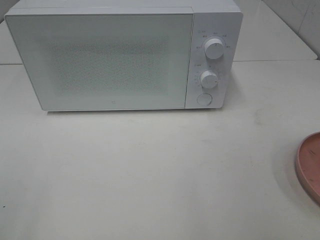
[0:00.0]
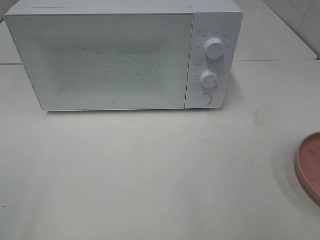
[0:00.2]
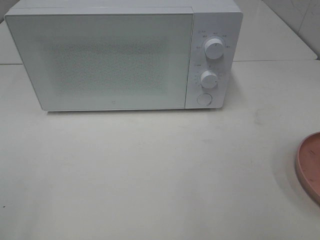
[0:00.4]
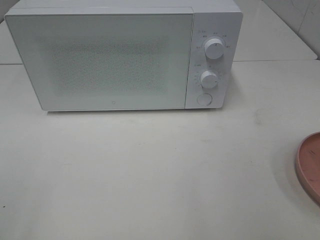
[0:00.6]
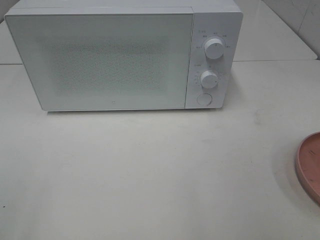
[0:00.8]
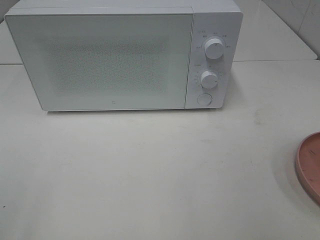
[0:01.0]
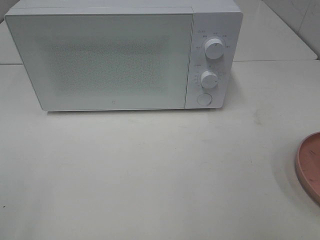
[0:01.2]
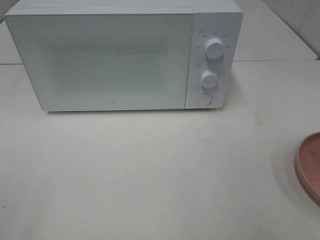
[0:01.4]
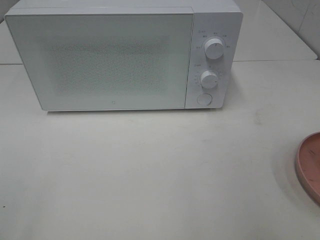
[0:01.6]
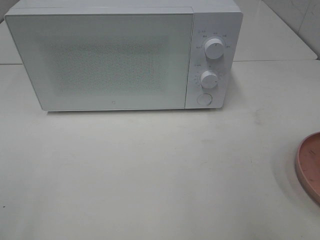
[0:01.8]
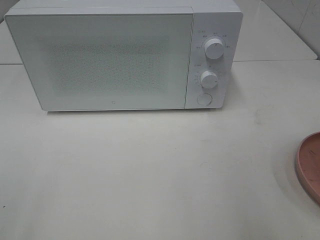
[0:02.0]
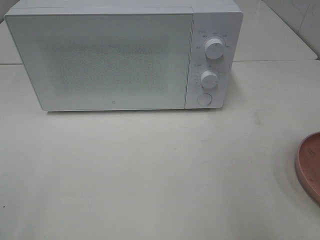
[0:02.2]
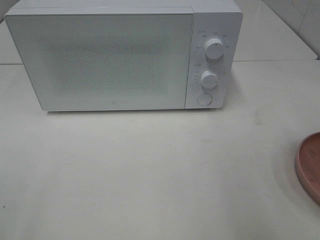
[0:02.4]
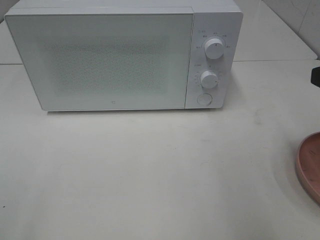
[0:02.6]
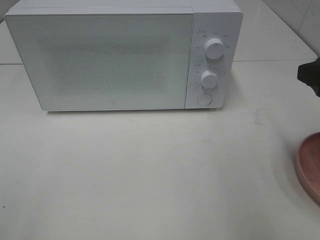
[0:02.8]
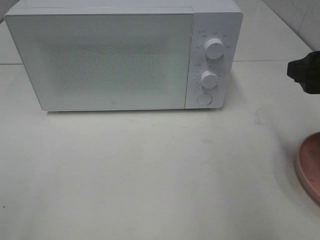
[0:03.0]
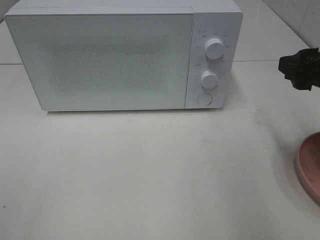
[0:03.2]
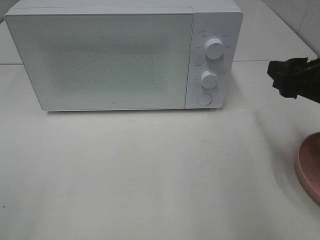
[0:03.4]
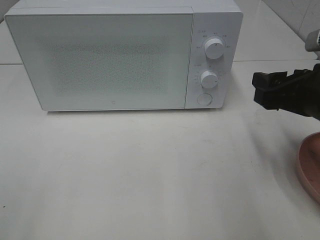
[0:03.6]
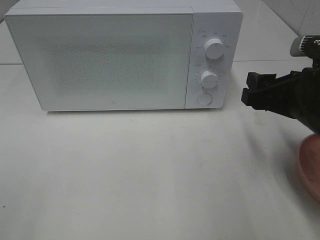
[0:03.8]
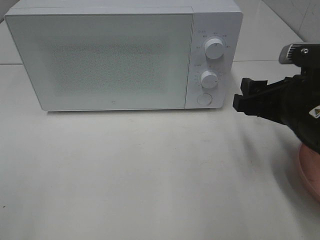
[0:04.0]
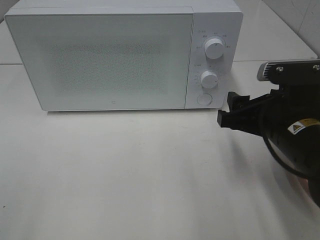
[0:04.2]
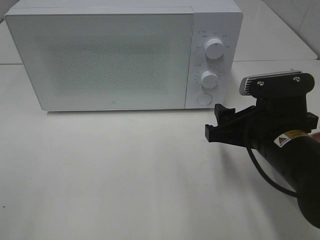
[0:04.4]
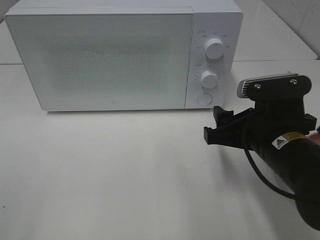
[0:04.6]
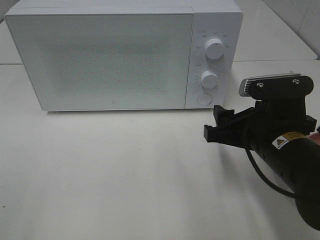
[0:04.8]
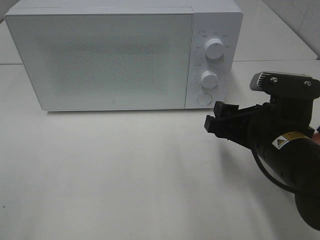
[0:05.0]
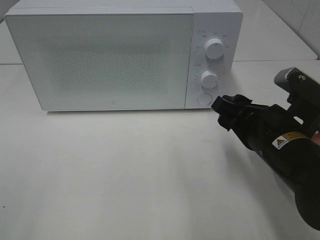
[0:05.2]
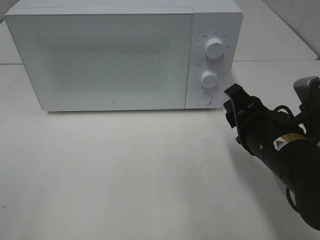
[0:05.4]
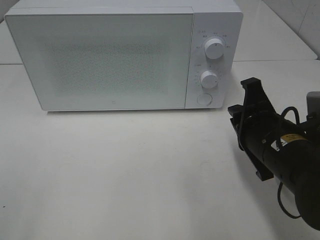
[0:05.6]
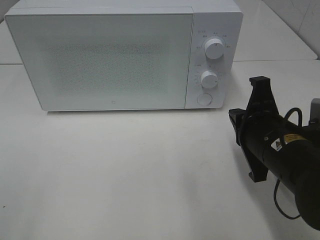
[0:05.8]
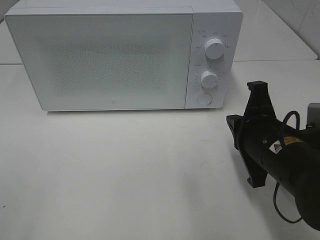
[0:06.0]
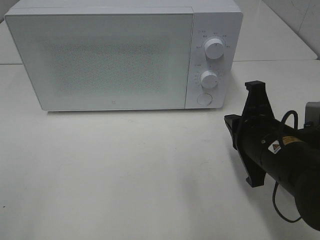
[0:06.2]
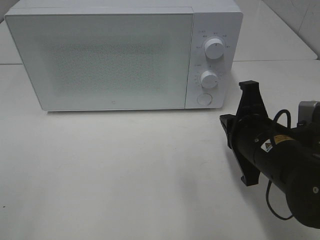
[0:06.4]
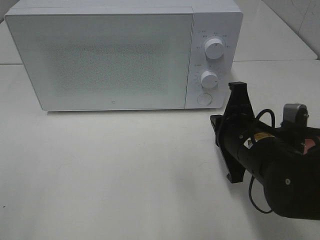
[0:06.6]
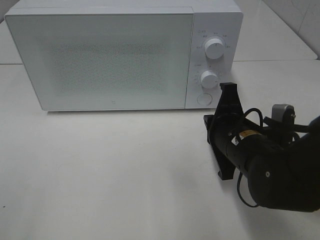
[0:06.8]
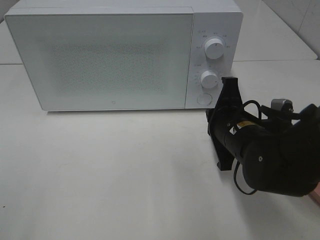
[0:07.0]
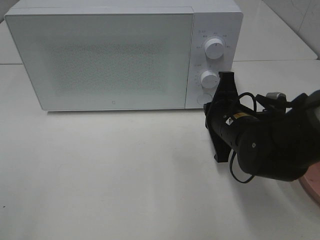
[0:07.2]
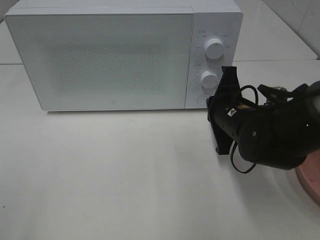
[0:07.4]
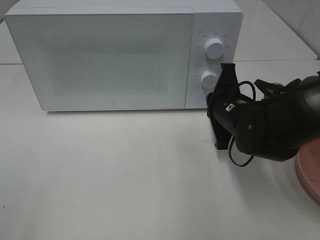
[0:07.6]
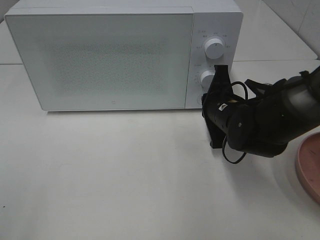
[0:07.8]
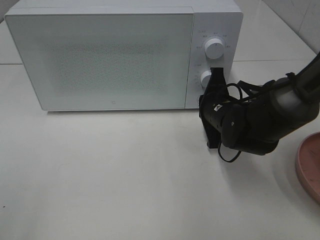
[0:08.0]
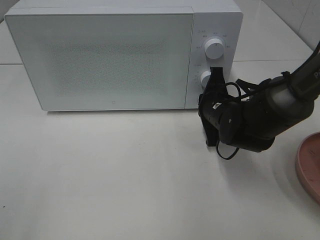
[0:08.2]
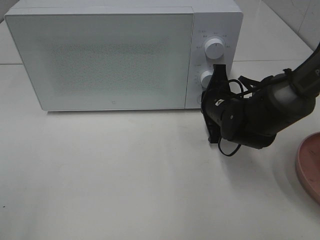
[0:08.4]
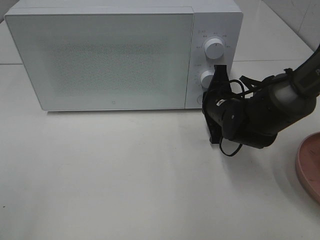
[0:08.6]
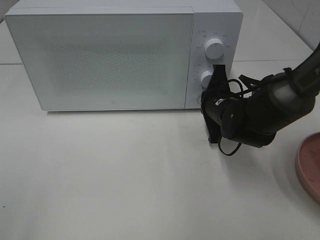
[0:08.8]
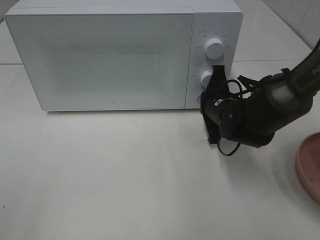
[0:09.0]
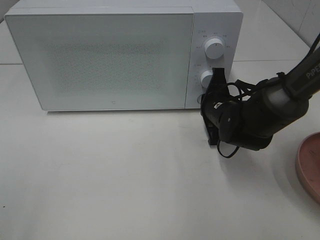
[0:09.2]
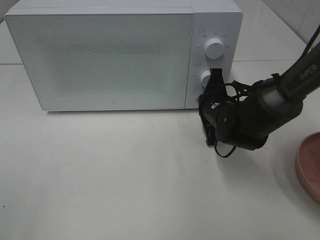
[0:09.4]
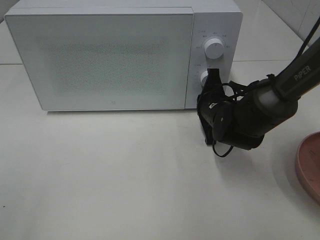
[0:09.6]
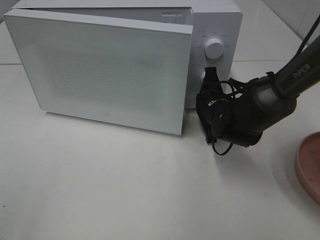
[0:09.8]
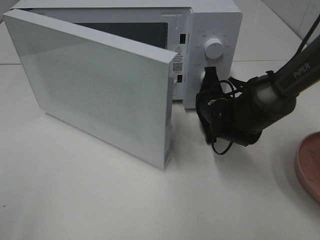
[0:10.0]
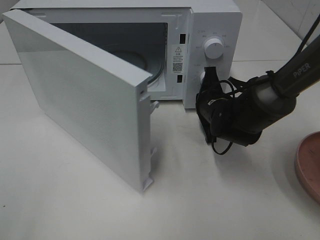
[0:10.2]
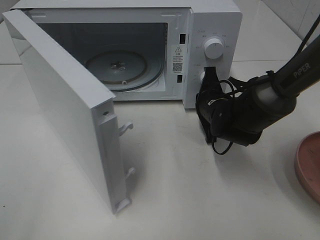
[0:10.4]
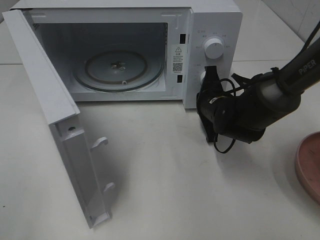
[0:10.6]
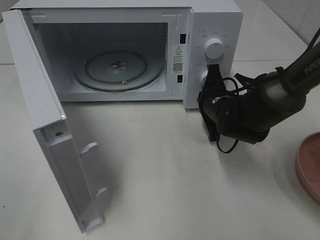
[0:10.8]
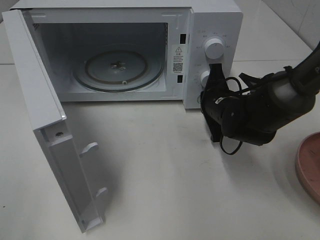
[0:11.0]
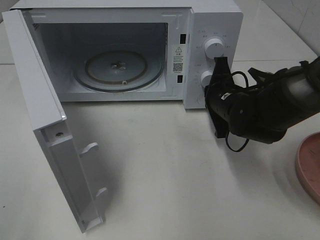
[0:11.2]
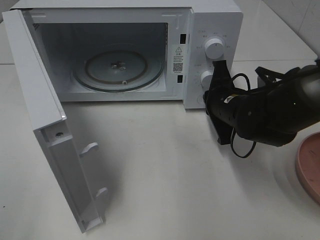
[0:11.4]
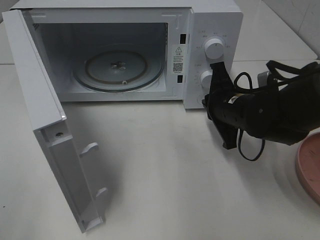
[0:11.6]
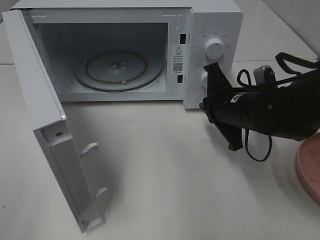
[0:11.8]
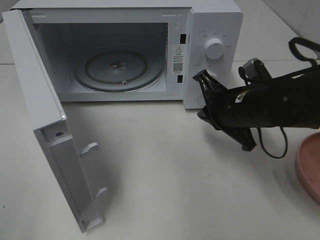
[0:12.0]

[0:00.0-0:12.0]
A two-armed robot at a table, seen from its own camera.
Task of the whole recording: Heat the burger.
Step, 0:00.0 to 0:11.2: Right hand: press the switch.
0:01.6 to 0:03.0: The right gripper heads forward, covering approximately 15 cm.
0:03.0 to 0:04.4: The right gripper moves to the left and downward, some 15 cm.
0:04.4 to 0:06.0: The right gripper closes.
0:06.0 to 0:07.6: The right gripper moves forward, about 10 cm.
0:07.6 to 0:09.0: The grippers make only small movements.
0:10.4 to 0:12.0: The right gripper moves backward and upward, roughly 10 cm.

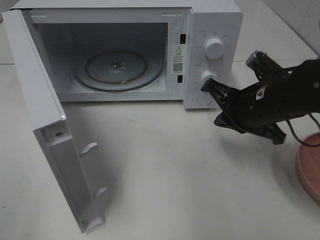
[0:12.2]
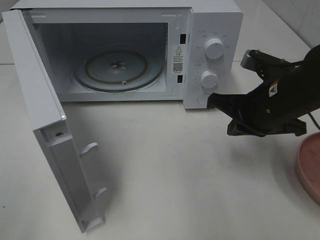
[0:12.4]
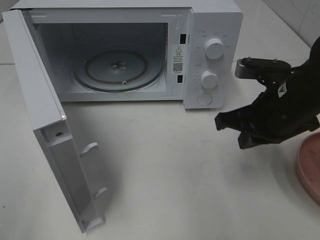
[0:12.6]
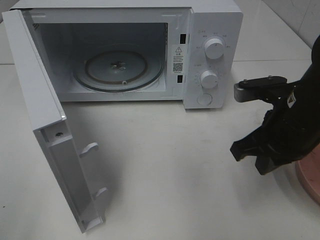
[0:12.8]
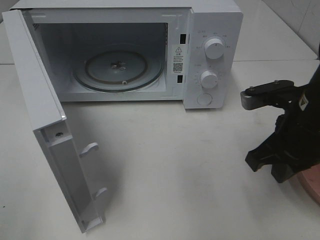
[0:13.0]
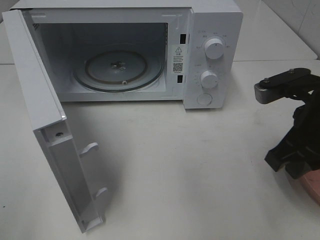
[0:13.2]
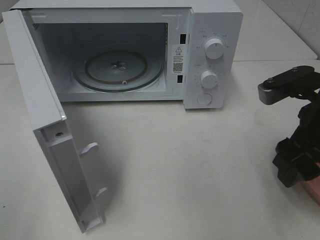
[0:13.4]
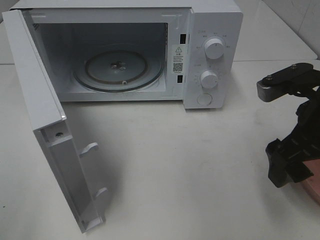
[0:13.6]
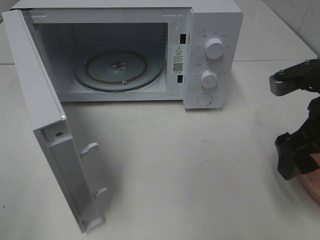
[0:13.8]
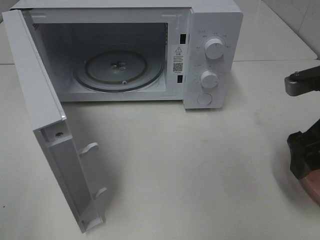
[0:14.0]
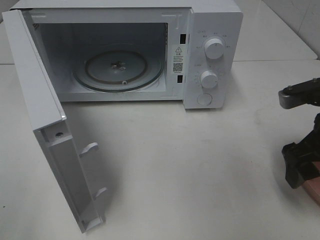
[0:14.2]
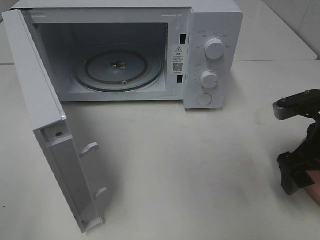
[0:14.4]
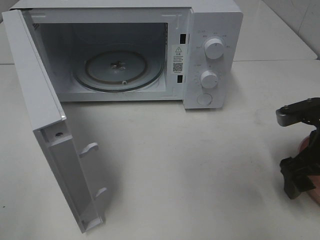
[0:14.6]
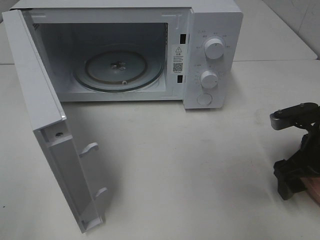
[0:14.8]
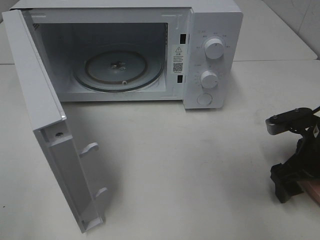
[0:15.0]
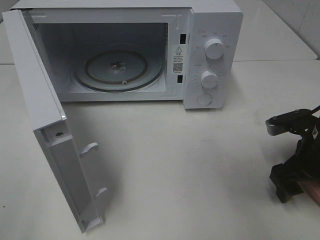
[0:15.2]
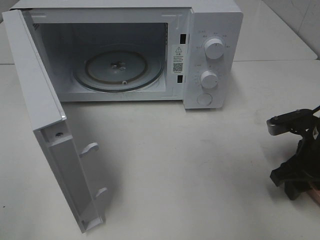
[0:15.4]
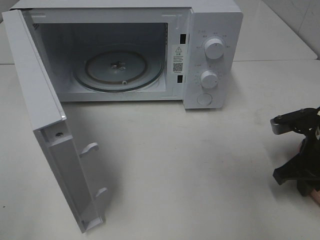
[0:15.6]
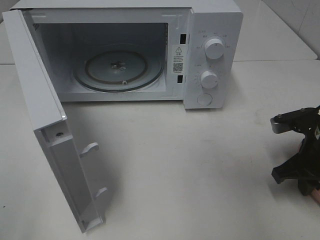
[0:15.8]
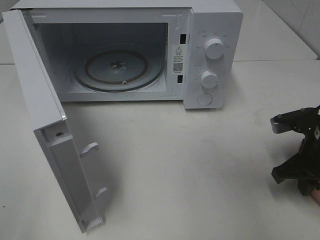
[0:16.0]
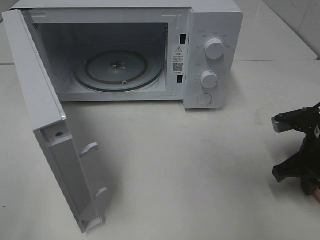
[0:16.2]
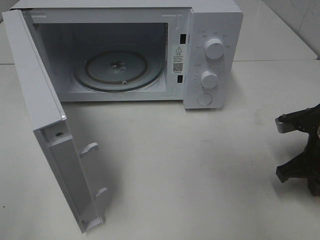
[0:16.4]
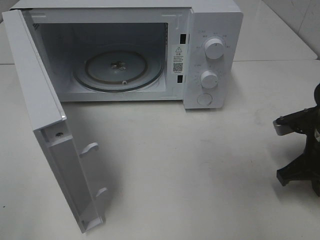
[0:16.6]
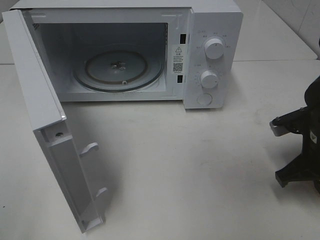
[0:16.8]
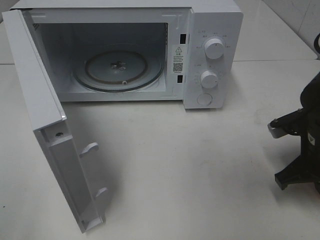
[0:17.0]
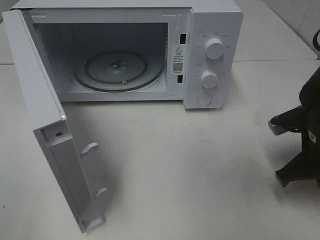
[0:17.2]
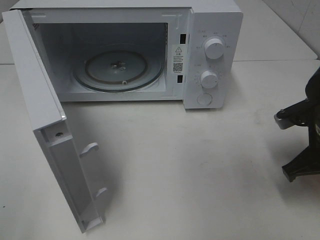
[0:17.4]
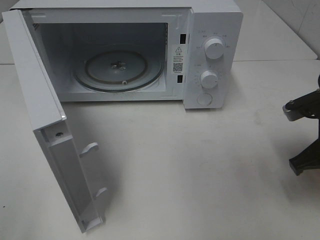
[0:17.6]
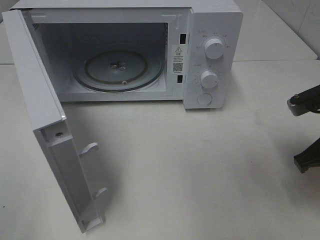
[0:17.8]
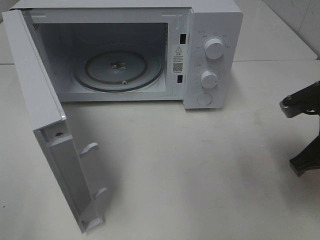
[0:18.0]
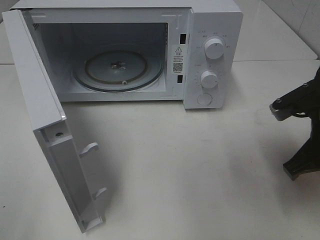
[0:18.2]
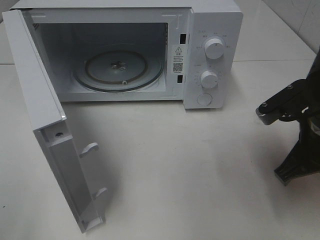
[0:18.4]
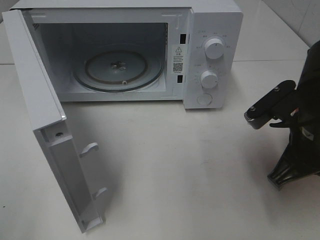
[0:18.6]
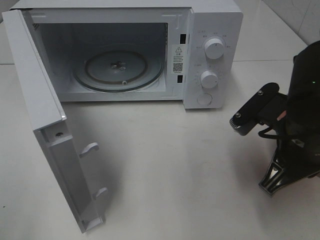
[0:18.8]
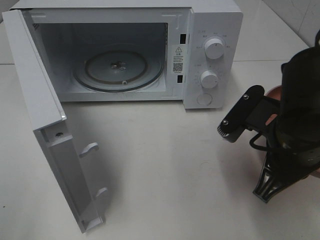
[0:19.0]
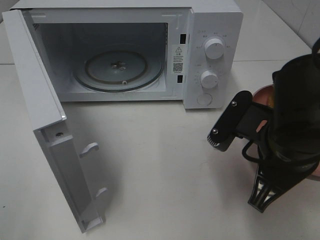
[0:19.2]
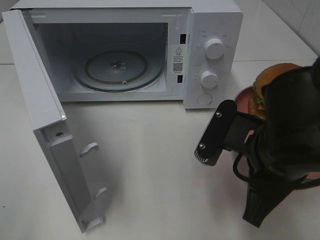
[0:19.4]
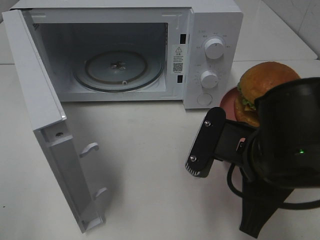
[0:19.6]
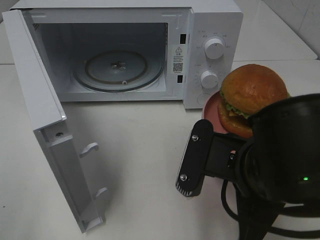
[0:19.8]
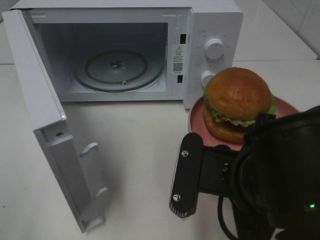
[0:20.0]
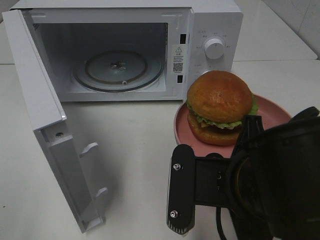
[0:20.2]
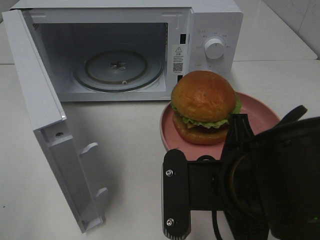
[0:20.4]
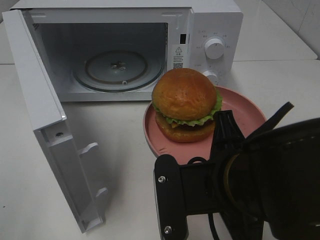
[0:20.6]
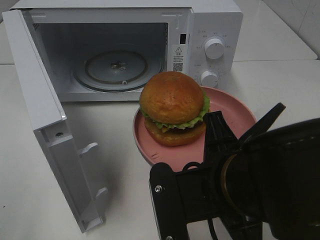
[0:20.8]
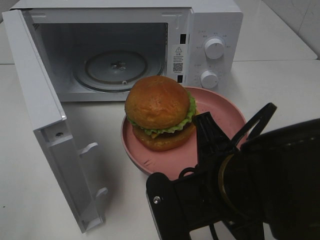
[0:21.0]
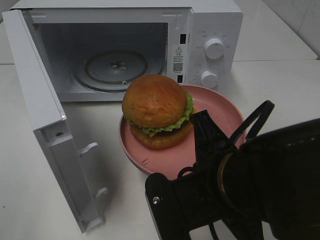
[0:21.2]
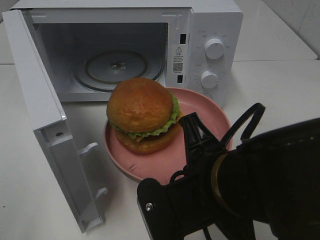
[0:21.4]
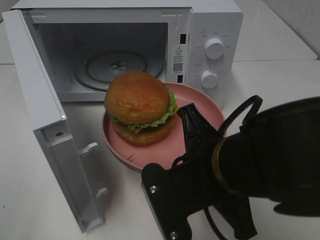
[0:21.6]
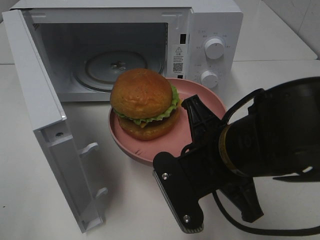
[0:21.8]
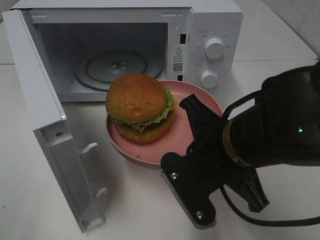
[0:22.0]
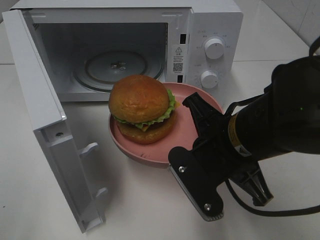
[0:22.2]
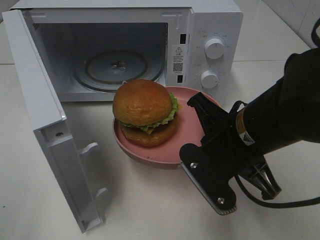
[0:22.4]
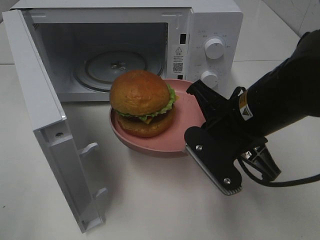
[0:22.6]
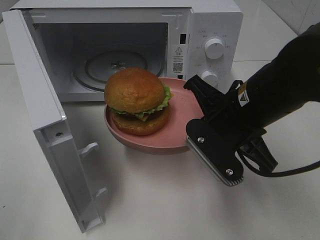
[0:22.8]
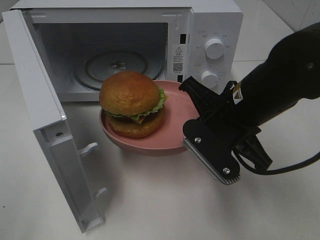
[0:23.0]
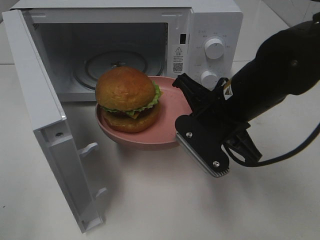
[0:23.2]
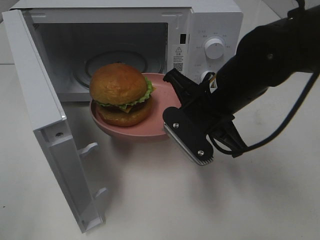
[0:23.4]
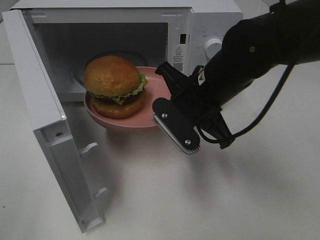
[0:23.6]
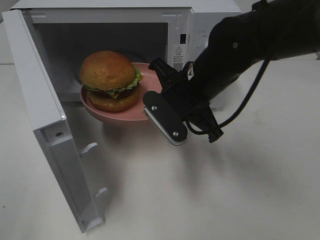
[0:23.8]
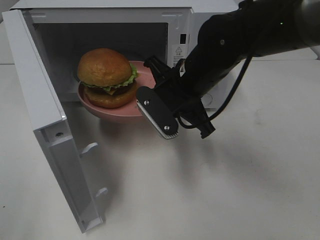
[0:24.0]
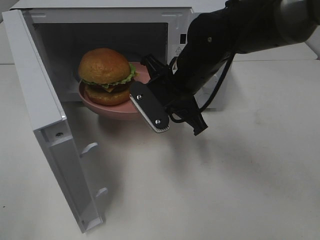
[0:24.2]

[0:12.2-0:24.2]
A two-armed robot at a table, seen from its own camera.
Task of the whole recording: Heat the burger.
Step, 0:12.2 to 0:16.8: Right hand: grab the plate with the hamburger.
0:12.2 to 0:13.8: The right gripper heads backward, to the right and upward, covering some 10 cm, and opens its fingers.
0:13.8 to 0:15.2: The right gripper heads downward, covering about 10 cm.
0:15.2 to 0:16.6: The right gripper closes.
0:16.6 to 0:18.2: The right gripper heads upward, covering roughly 5 cm.
0:18.2 to 0:19.8: The right gripper shifts some 15 cm to the left and backward.
0:21.2 to 0:22.6: The right gripper travels forward by some 10 cm.
0:22.6 to 0:24.2: The right gripper goes some 15 cm forward and to the left.
